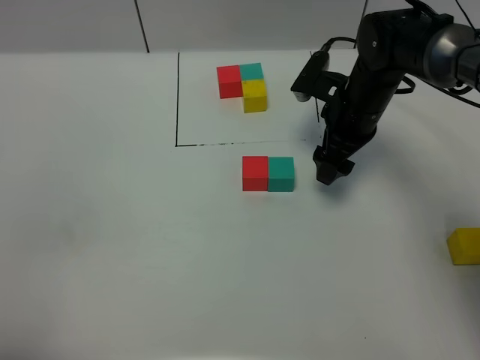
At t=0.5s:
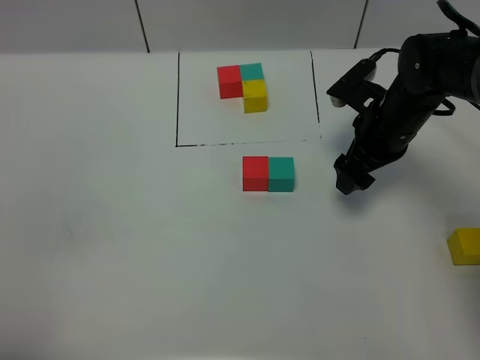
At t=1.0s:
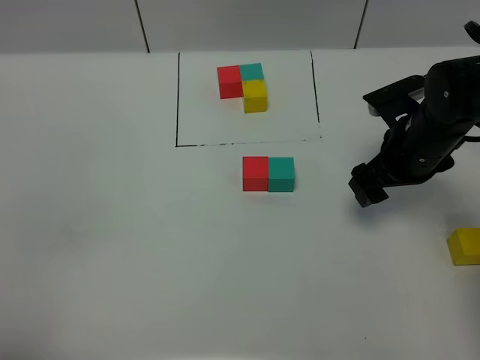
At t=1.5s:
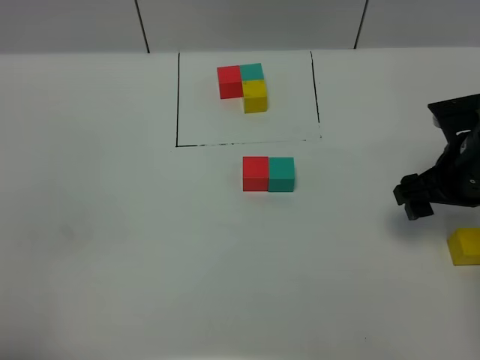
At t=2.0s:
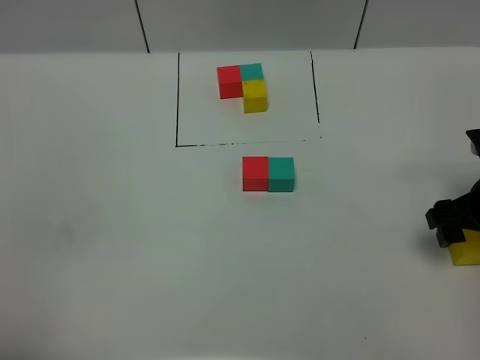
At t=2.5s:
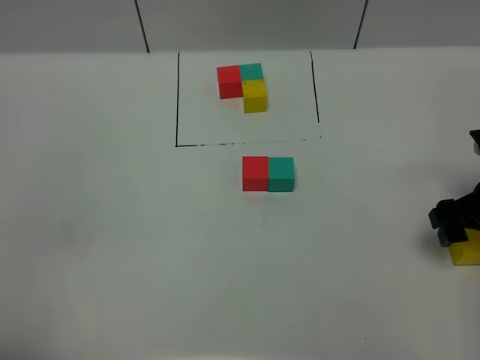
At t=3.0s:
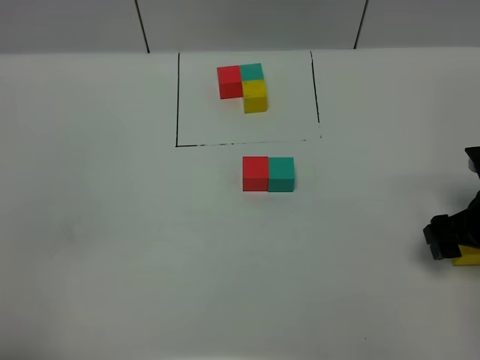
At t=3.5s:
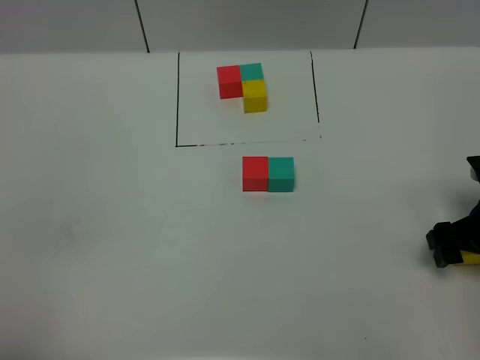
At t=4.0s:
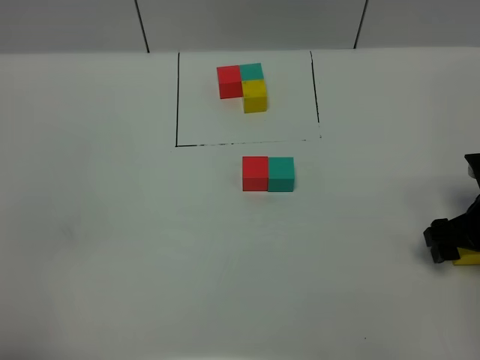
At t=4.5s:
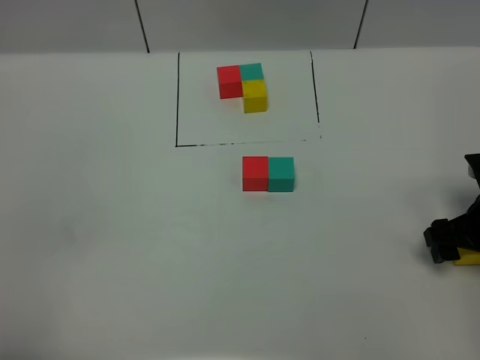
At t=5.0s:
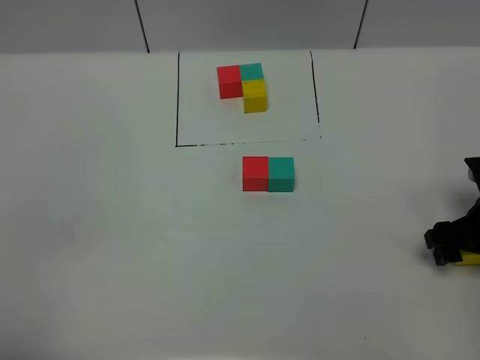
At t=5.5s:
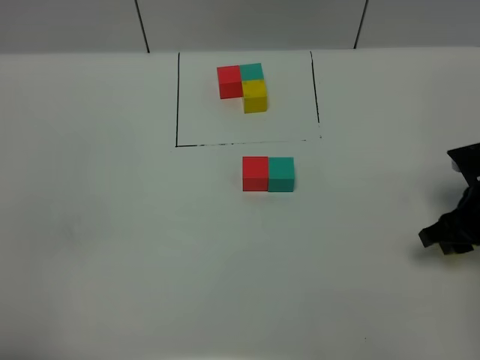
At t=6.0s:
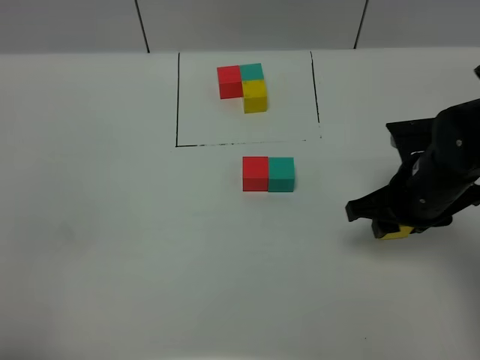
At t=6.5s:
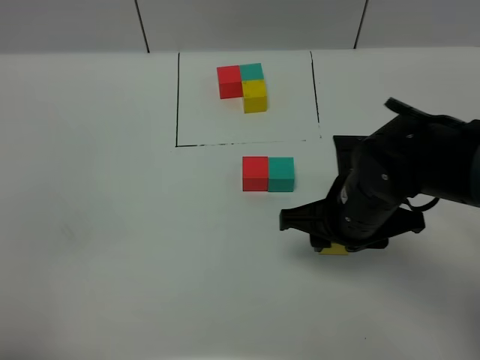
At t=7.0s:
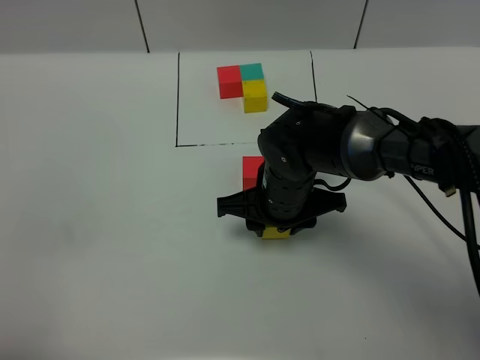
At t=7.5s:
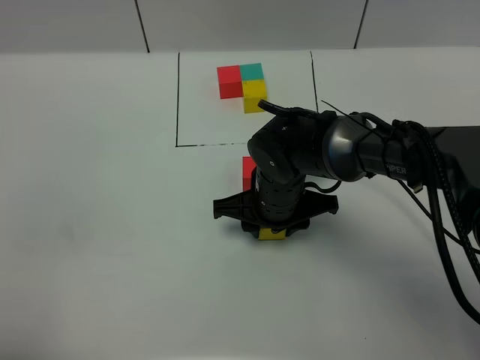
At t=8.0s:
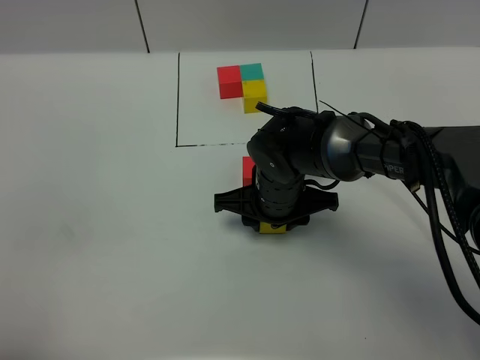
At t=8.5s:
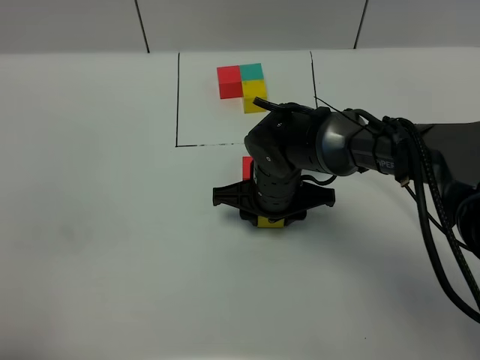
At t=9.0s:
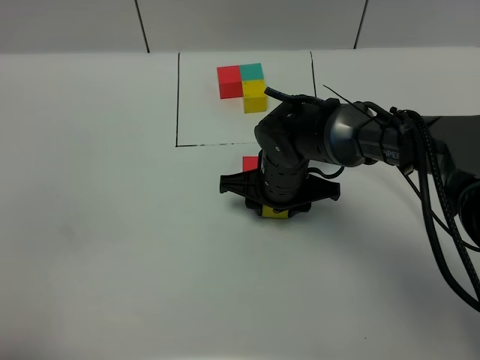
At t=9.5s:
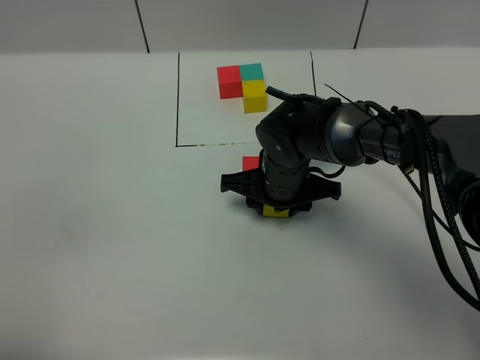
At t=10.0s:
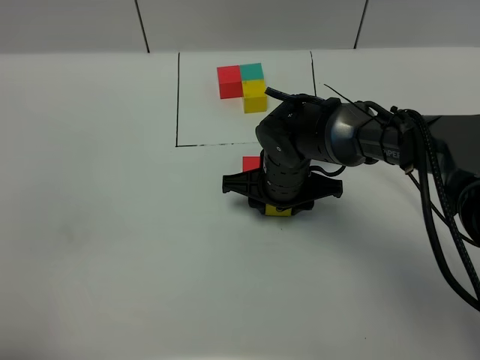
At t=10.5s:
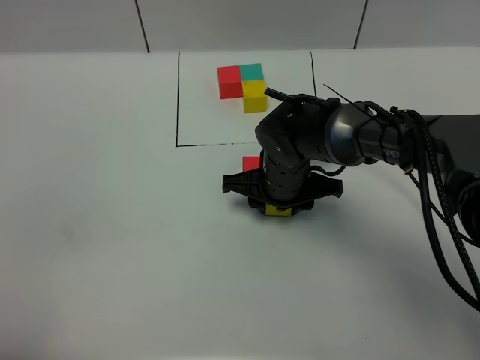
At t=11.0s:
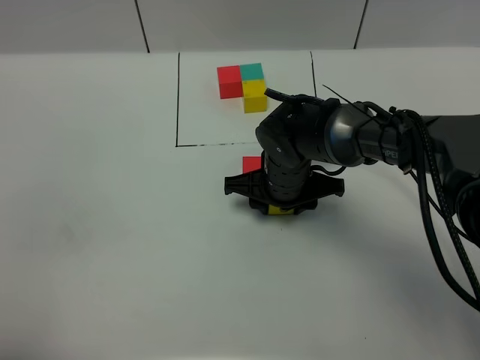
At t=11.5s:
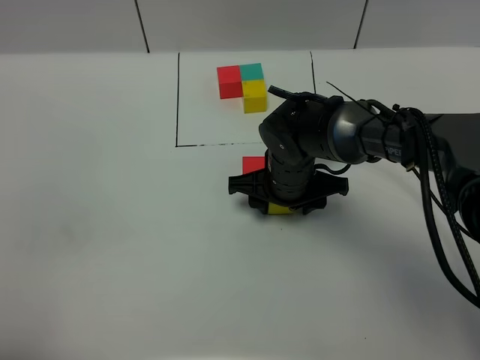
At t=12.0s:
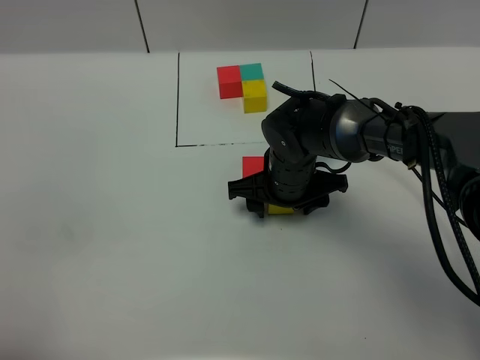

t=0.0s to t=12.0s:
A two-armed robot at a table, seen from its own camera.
Task of the whole recording: According to the building block template in front, assemble the scattered blocks together.
Step, t=0.0s to t=11.5s: Put the yellow build block on the behind of the green build block.
t=0.0s to t=2.0s: The right gripper is displaced backward and to the right by some 20 cm.
t=2.0s to t=4.0s: The grippers stay close to where they were, moving slightly.
t=4.0s to t=6.0s: The right gripper moves to the left, roughly 10 cm, and closes.
t=6.0s to t=8.0s: The right gripper moves to the left, roughly 15 cm.
t=8.0s to t=10.0s: The grippers stay close to where they were, moving slightly.
t=10.0s to t=12.0s: The right gripper opens up.

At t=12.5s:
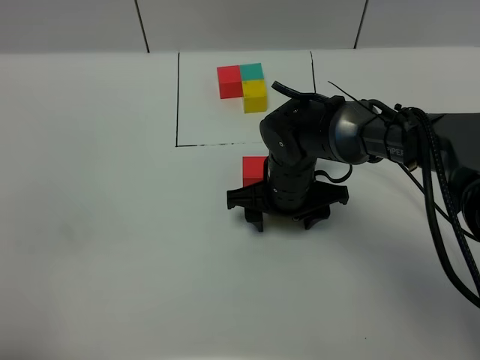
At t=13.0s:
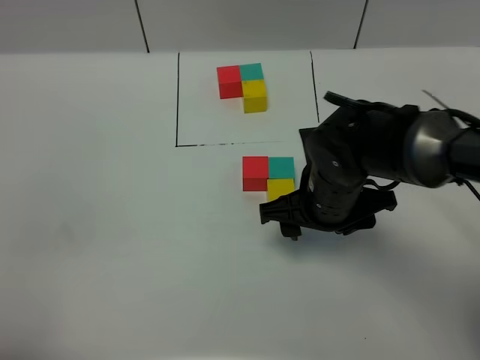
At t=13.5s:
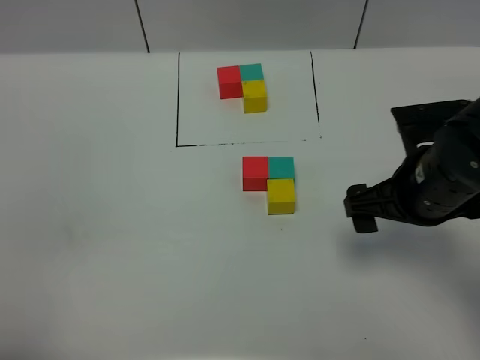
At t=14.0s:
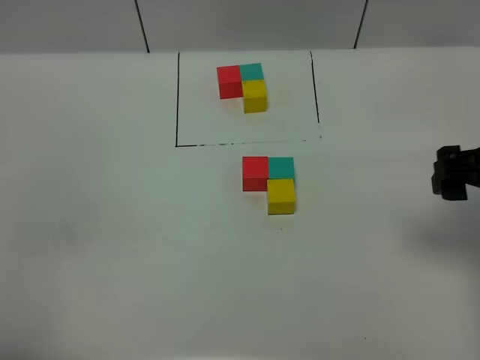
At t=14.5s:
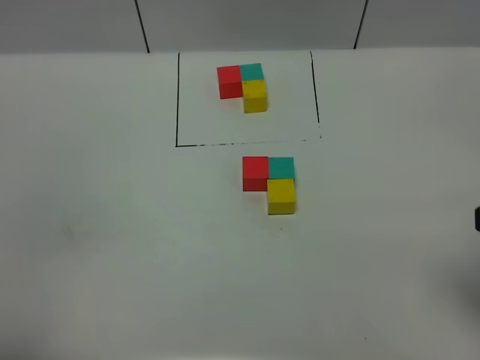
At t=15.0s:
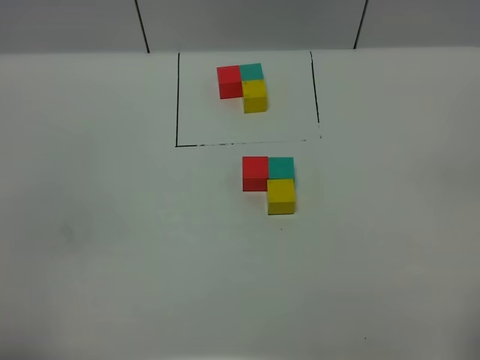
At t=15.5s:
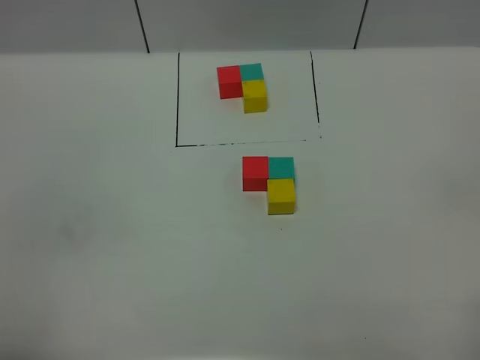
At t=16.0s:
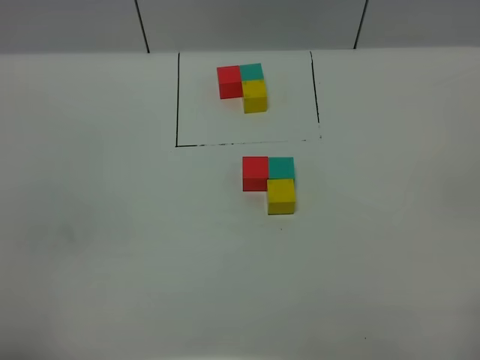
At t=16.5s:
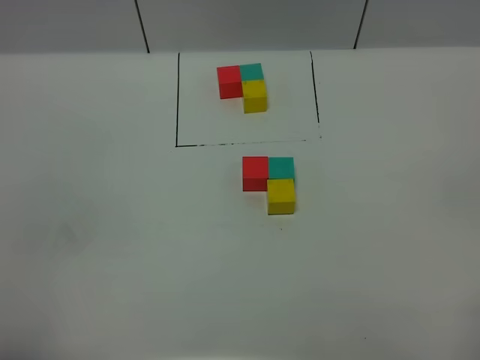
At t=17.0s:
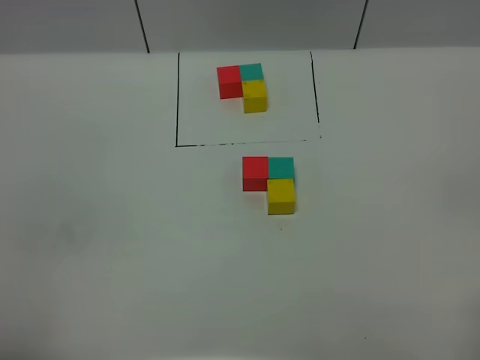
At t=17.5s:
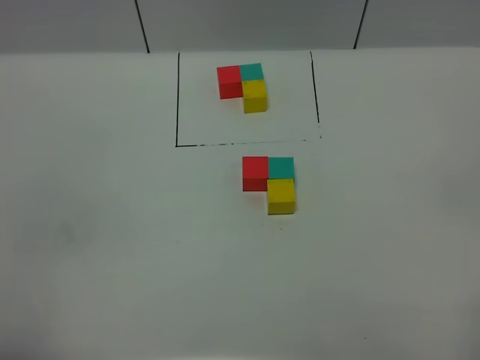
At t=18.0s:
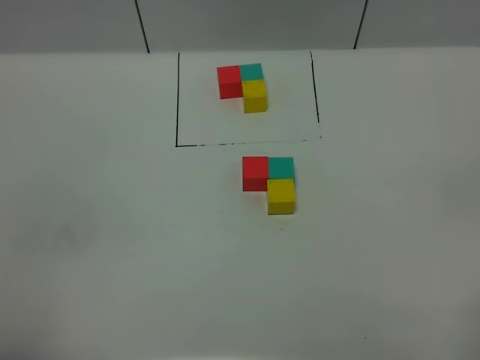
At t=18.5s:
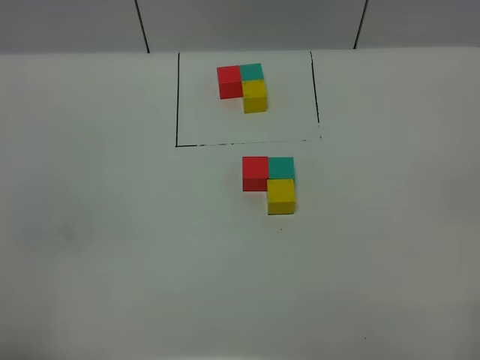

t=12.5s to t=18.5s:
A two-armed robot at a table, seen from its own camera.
Task of the whole recording: According to the building block template in front, assemble the scattered blocks together.
t=12.5s to t=14.5s: The right gripper travels backward, to the right and upward by approximately 35 cm, and opens up.
t=16.5s to t=18.5s: Both grippers stay about where they are.
